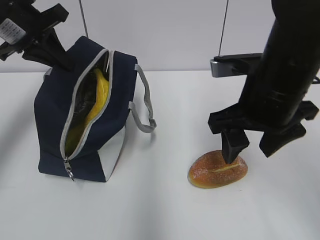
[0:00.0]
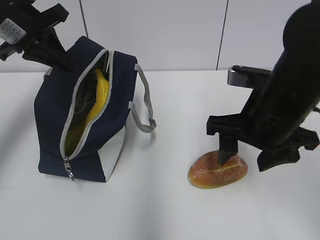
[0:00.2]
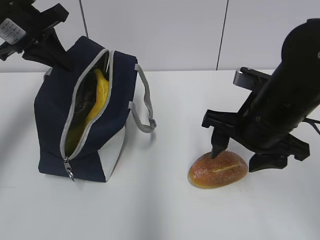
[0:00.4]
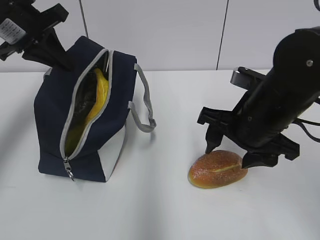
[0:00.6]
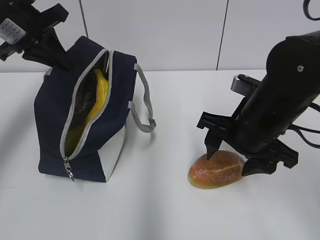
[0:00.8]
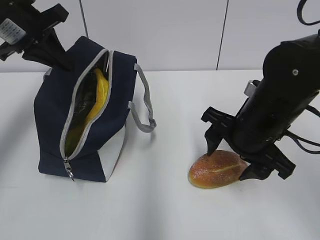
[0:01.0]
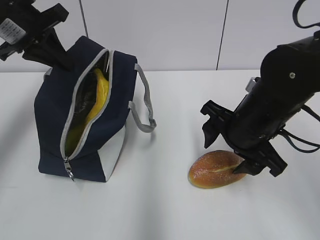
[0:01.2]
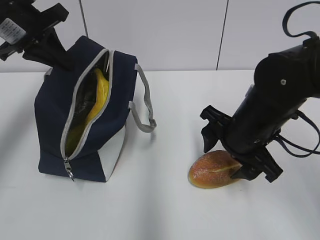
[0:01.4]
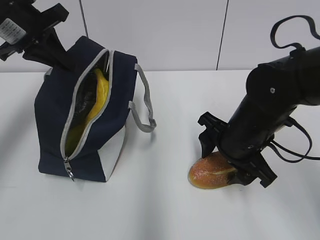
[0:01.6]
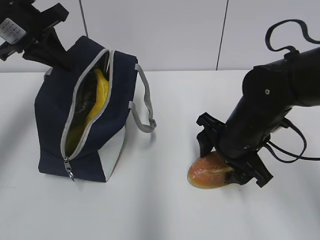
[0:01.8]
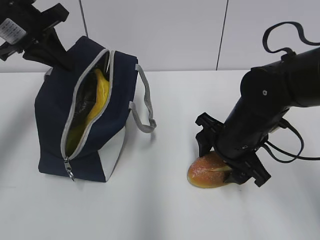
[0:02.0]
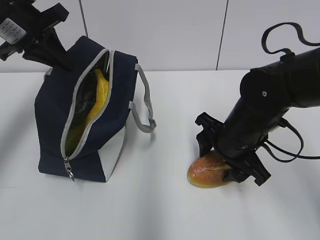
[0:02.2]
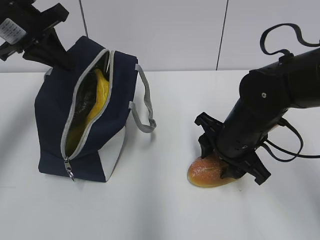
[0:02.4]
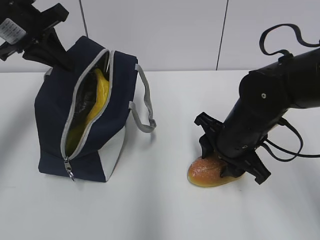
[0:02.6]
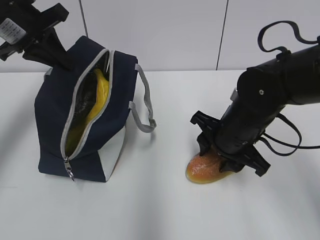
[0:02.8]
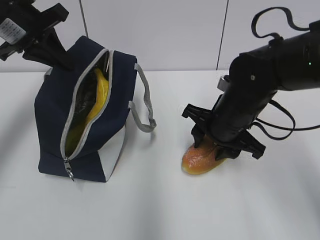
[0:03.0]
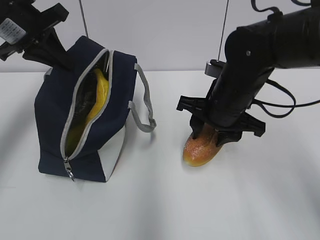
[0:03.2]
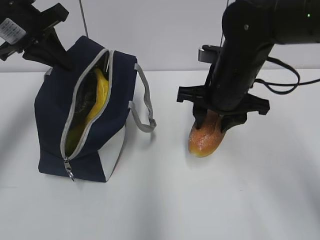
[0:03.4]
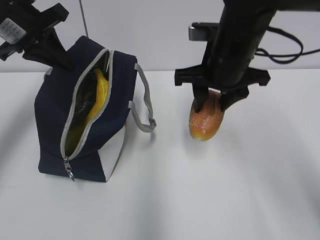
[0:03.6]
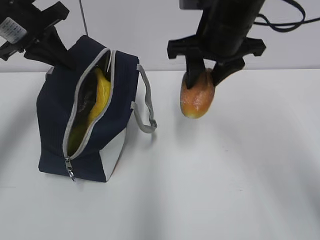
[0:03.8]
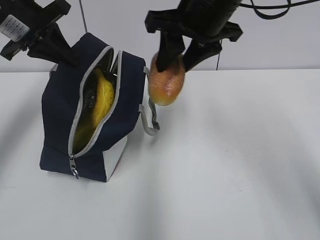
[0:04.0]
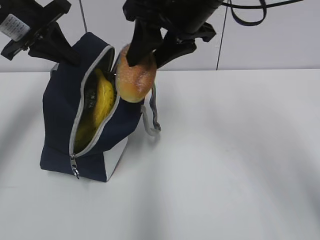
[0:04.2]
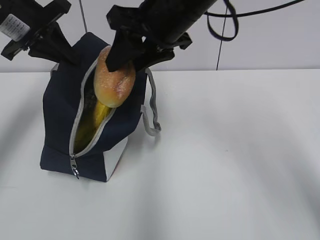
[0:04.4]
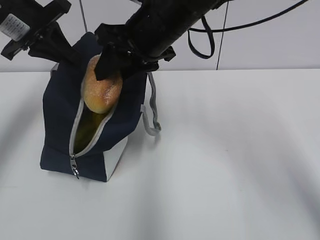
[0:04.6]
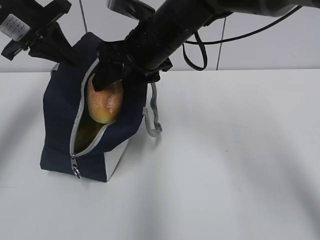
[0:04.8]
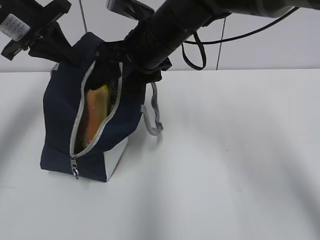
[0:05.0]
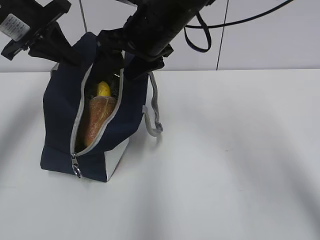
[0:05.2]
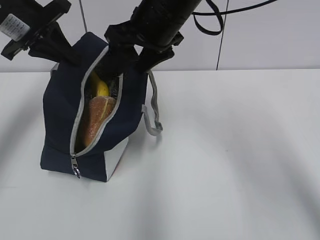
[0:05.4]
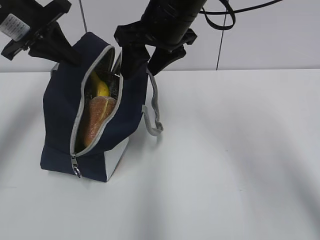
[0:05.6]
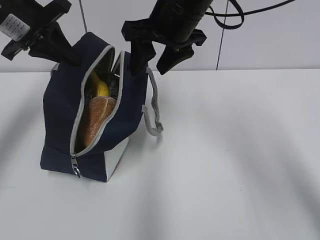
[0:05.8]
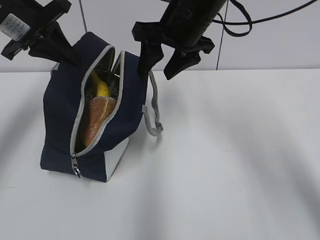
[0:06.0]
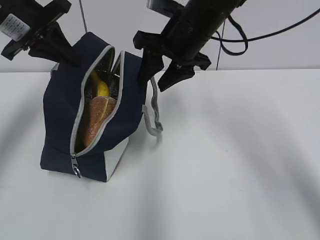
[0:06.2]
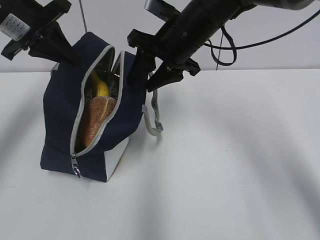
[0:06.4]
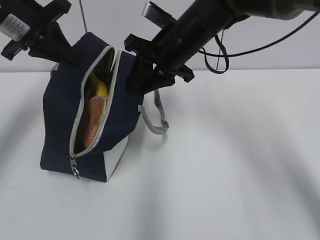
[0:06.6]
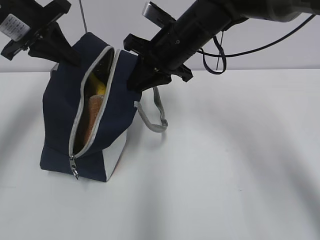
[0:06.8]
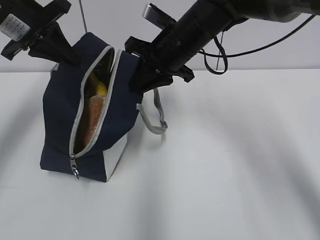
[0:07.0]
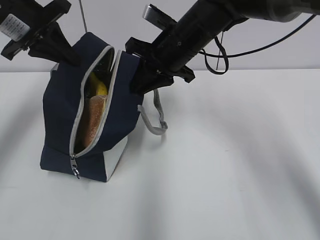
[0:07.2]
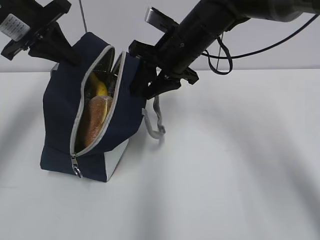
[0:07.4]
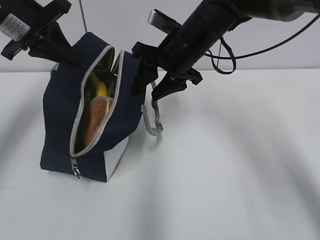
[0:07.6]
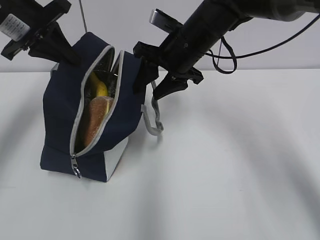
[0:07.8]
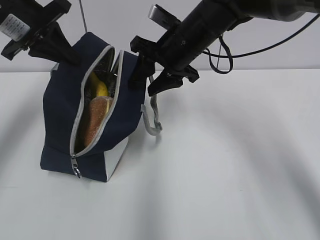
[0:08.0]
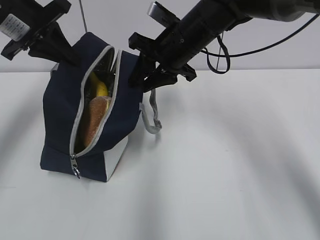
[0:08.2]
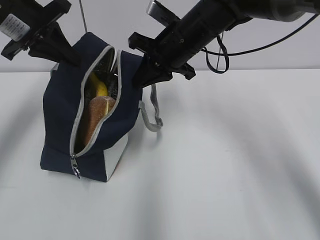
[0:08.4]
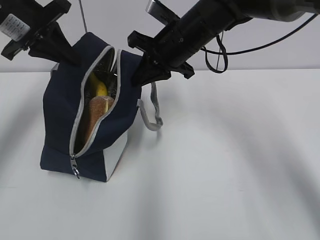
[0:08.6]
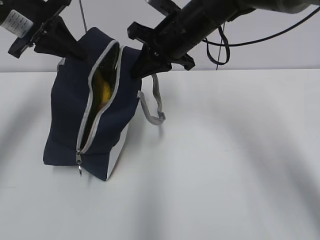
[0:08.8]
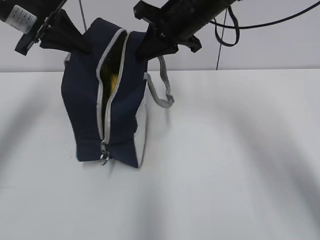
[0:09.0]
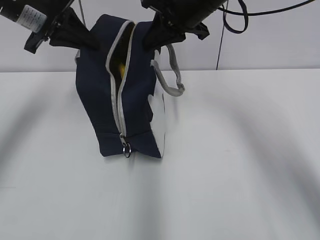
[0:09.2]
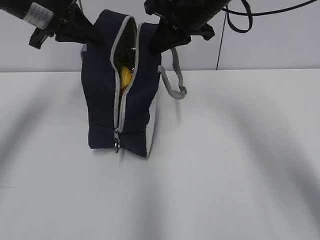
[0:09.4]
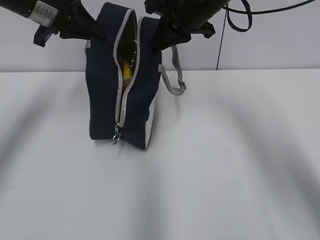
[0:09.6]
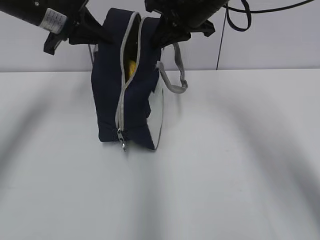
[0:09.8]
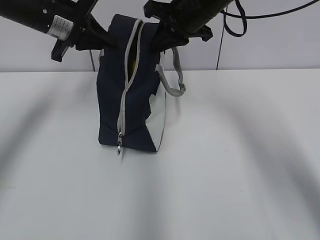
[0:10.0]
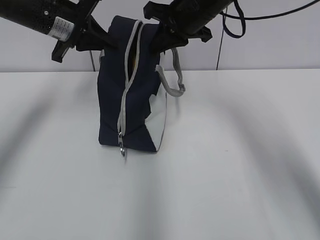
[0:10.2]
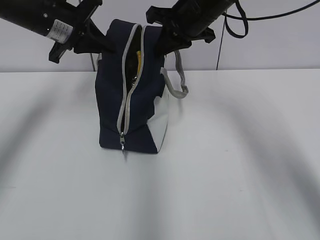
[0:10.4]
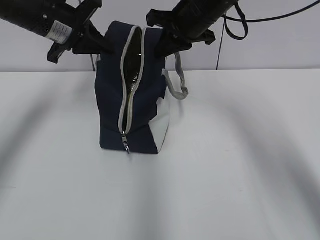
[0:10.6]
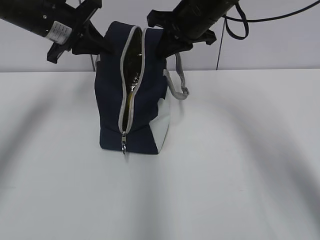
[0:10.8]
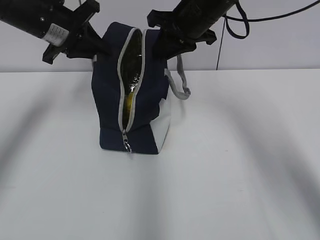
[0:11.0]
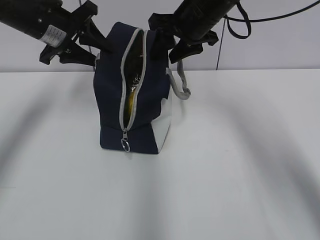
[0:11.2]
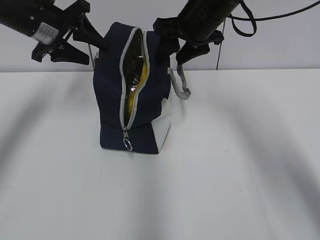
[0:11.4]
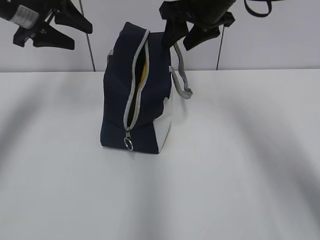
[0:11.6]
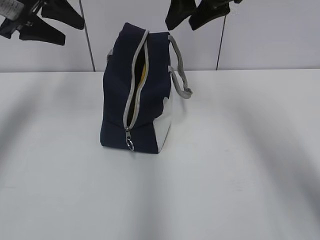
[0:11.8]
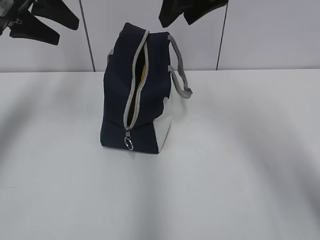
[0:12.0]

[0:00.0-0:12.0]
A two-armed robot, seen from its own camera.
Step, 0:00.0 to 0:02.8: Grab the bread with your right hand.
Step, 0:05.2 to 0:08.6: Grab the lunch bag with your right hand.
Step, 0:08.8 to 0:11.0: Move the lunch bag to the right.
0:00.0 to 0:01.6: The right gripper is displaced downward by some 10 cm.
0:01.6 to 0:03.0: The grippers stay close to where they were, moving slightly.
0:03.0 to 0:04.4: The right gripper travels upward and to the left by some 15 cm.
0:04.4 to 0:06.0: The right gripper moves some 5 cm.
0:06.0 to 0:07.6: The right gripper is displaced downward by about 5 cm, and closes, then reopens.
0:07.6 to 0:09.0: The right gripper closes its fingers.
0:09.0 to 0:10.4: The left gripper moves some 5 cm.
0:10.4 to 0:12.0: The right gripper goes some 10 cm upward and backward, and opens up; the left gripper goes approximately 5 cm upward, and opens up.

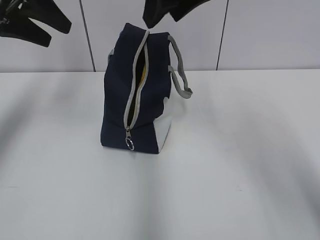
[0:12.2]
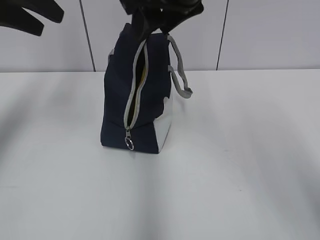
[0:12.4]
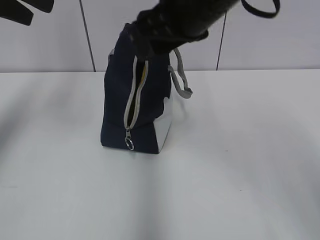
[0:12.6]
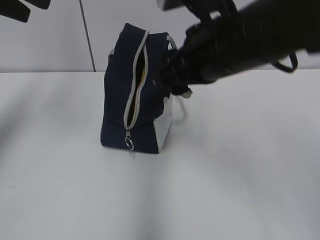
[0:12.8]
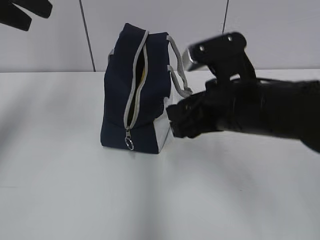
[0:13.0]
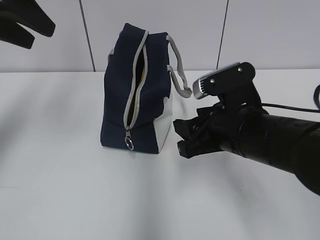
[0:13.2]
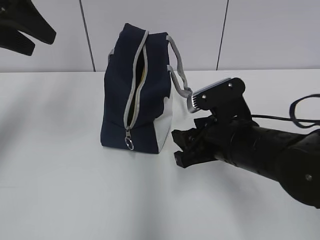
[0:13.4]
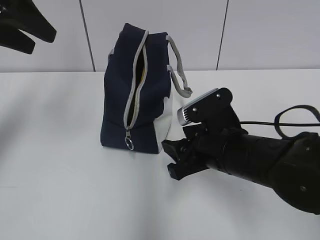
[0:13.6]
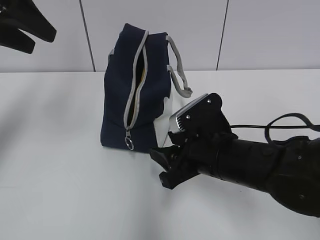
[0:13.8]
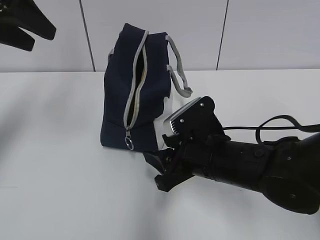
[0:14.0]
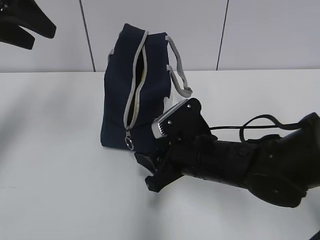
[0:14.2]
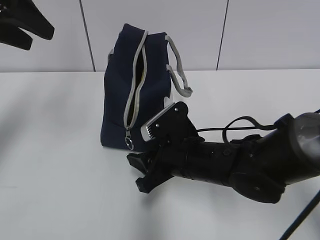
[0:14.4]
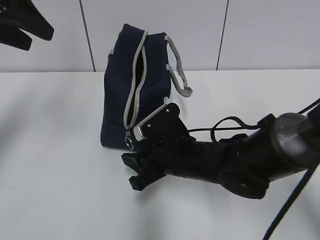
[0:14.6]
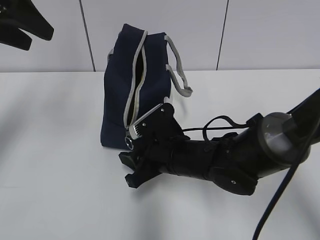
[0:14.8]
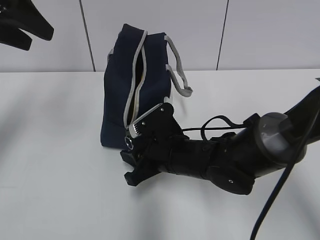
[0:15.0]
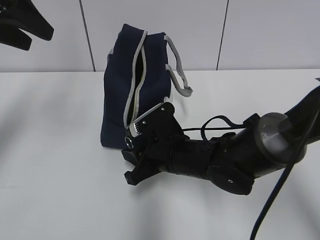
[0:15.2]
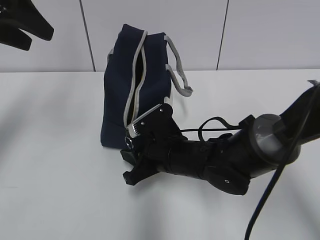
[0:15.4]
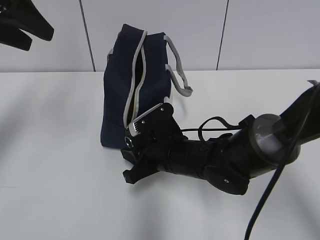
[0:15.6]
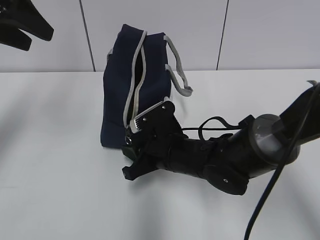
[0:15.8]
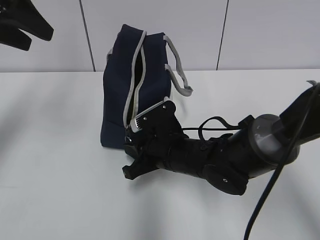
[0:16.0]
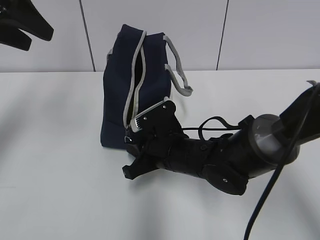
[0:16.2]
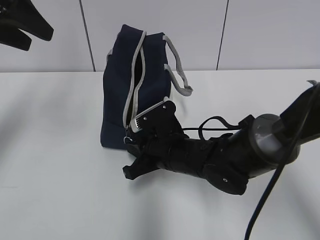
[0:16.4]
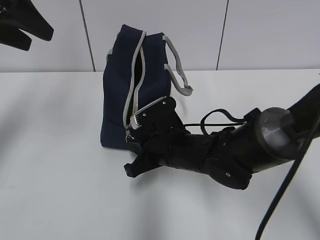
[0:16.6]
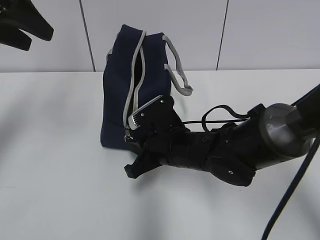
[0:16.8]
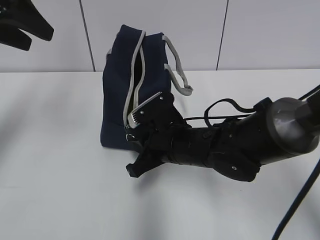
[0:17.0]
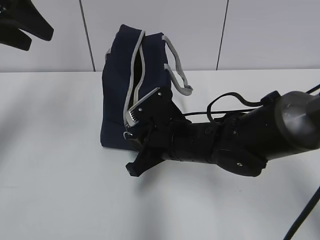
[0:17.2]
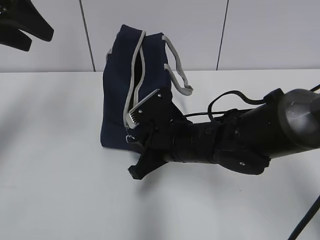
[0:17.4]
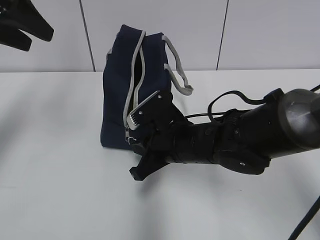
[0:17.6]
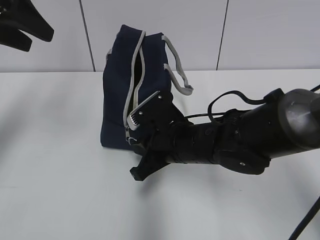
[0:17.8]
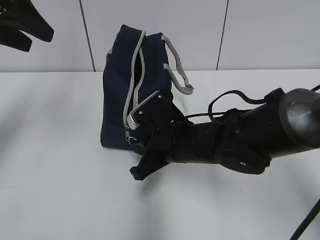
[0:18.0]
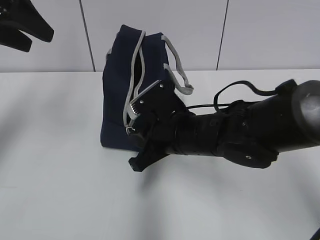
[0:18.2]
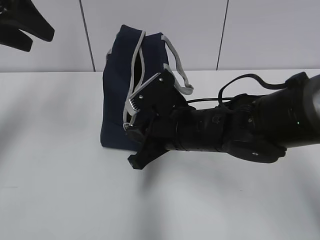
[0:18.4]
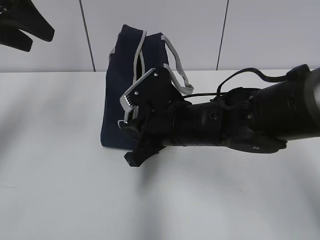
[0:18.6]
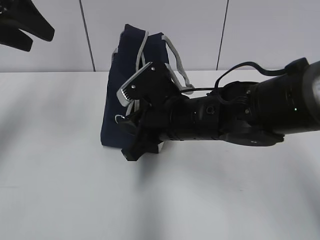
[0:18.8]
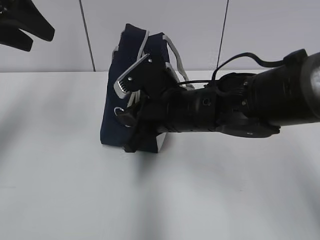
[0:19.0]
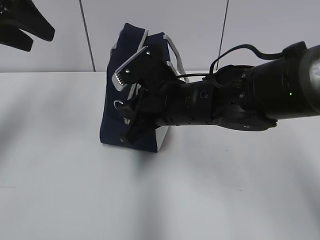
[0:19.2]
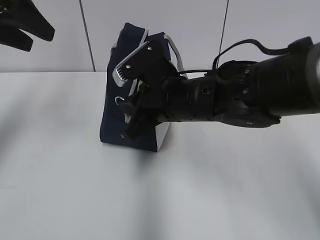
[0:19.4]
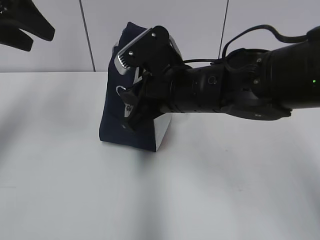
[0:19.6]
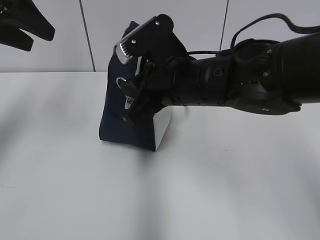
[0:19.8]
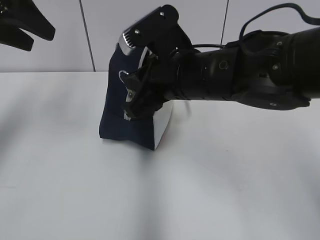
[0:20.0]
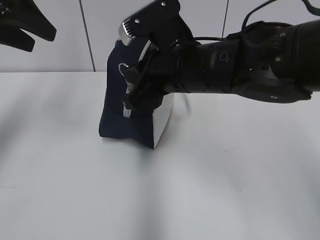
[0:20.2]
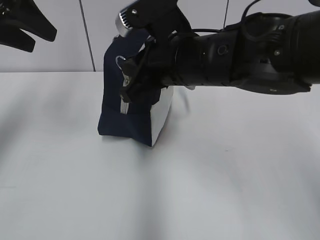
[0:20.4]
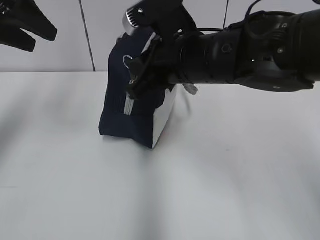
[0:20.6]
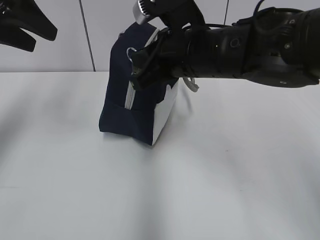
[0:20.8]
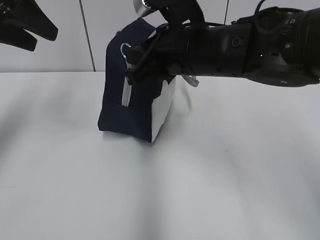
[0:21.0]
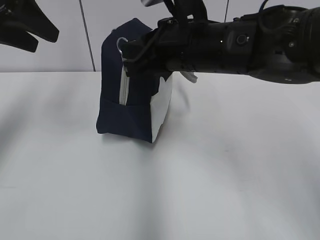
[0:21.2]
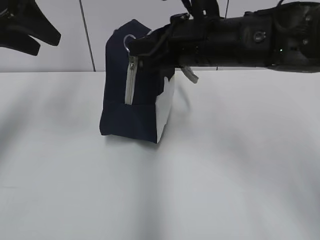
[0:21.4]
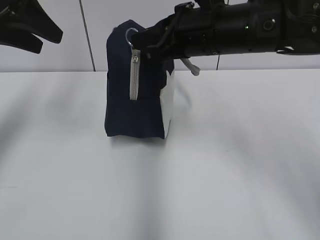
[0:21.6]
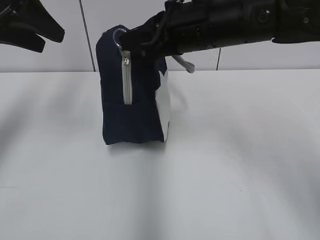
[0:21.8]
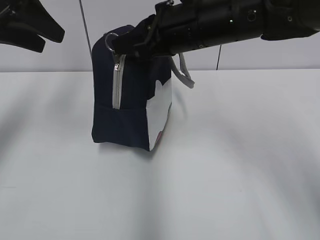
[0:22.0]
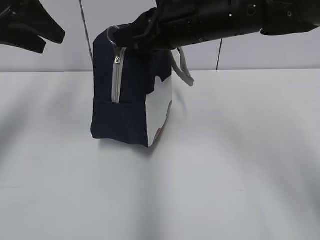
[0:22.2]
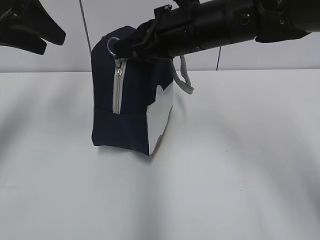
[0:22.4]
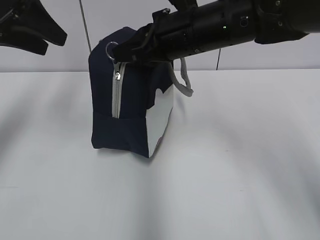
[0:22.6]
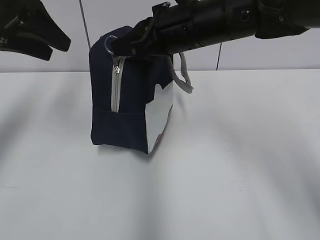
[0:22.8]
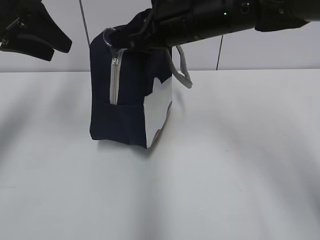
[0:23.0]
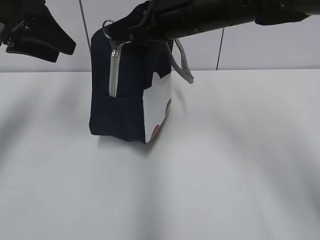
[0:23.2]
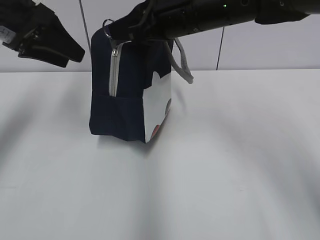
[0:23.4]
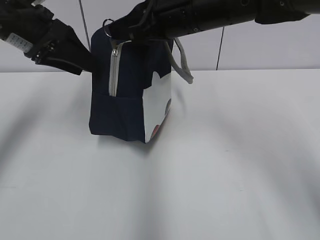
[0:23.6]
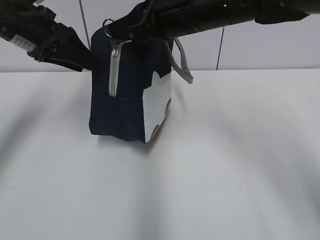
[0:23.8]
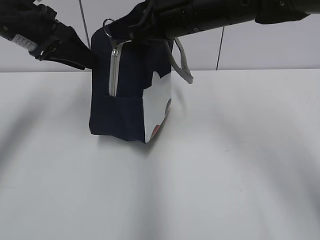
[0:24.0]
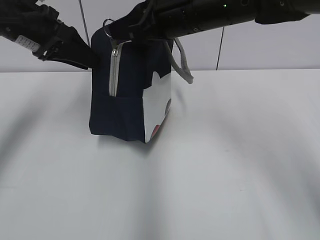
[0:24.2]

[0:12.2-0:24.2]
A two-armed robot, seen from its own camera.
0:12.2 to 0:13.8: The right gripper heads downward and backward, covering approximately 25 cm.
0:13.8 to 0:15.2: The right gripper heads to the left, covering about 5 cm.
0:15.2 to 0:16.6: The right gripper closes its fingers.
0:16.6 to 0:18.2: The grippers stay close to where they were, moving slightly.
0:18.2 to 0:19.8: The right gripper moves upward, some 10 cm.
0:19.8 to 0:21.2: The grippers stay close to where they were, moving slightly.
0:21.2 to 0:22.6: The grippers make only small movements.
0:22.6 to 0:24.2: The left gripper shifts some 5 cm downward.
